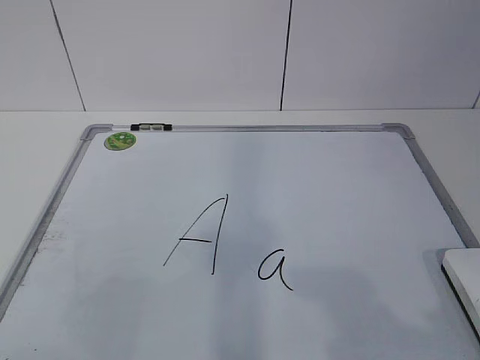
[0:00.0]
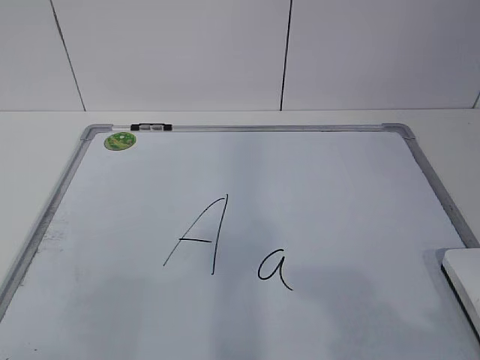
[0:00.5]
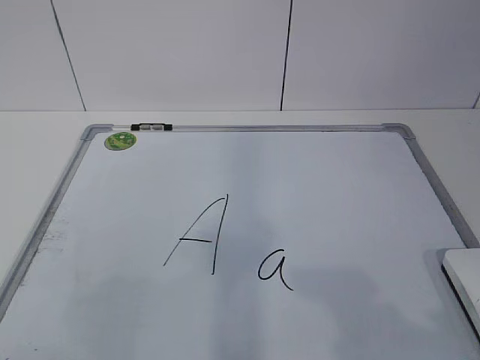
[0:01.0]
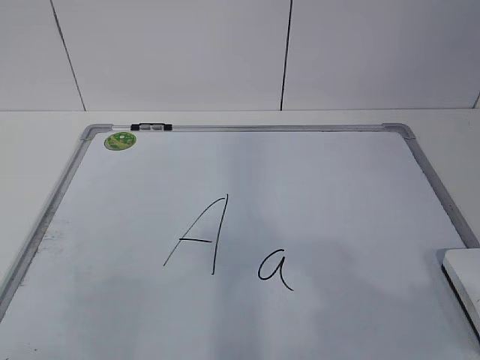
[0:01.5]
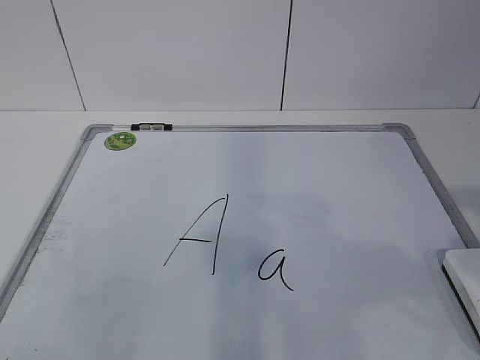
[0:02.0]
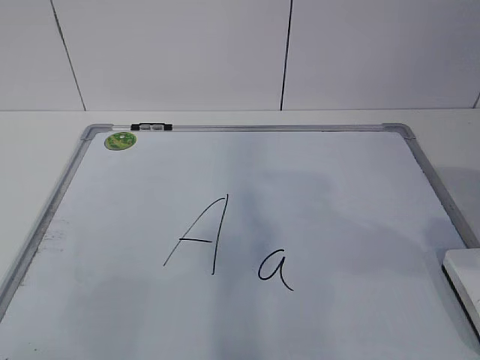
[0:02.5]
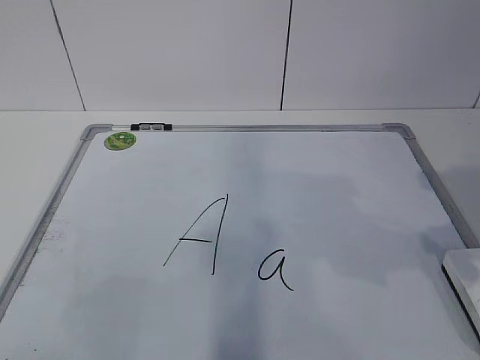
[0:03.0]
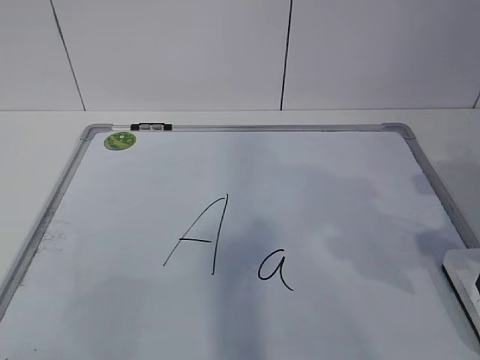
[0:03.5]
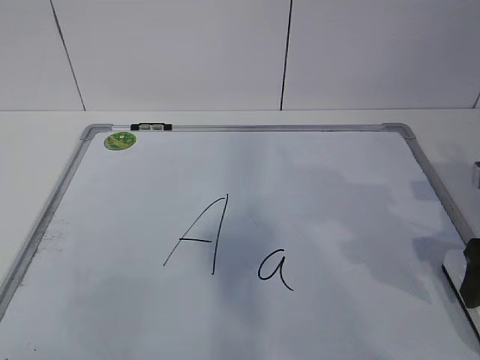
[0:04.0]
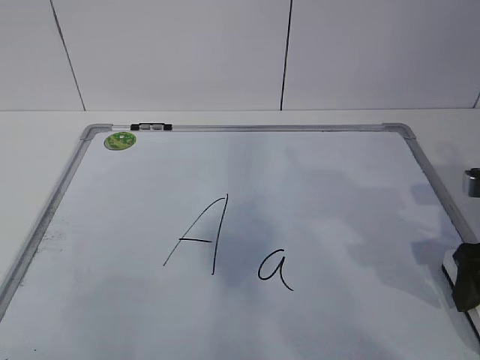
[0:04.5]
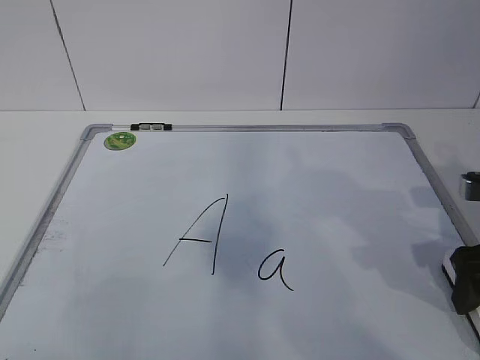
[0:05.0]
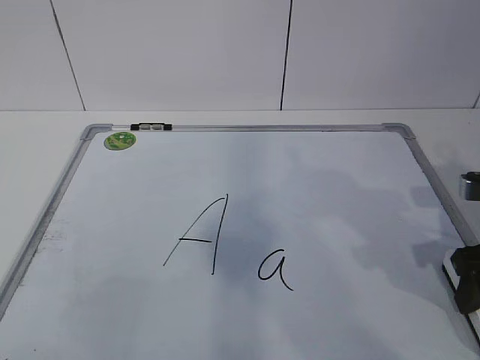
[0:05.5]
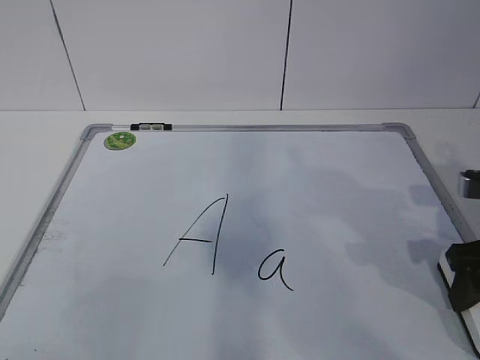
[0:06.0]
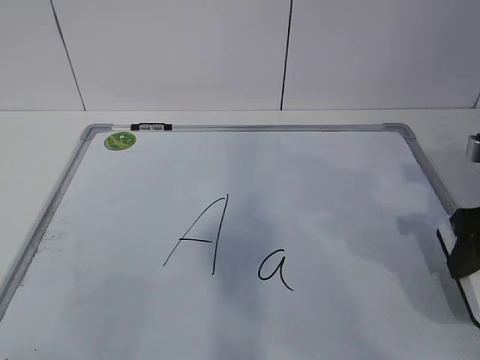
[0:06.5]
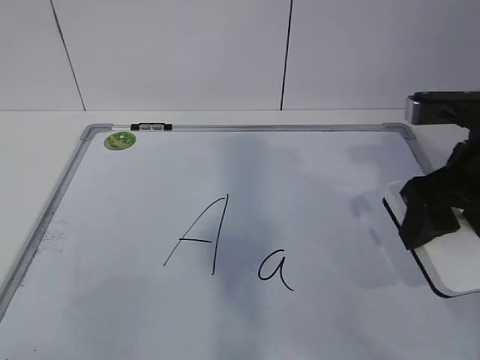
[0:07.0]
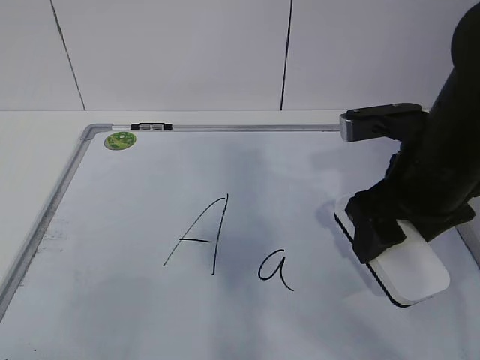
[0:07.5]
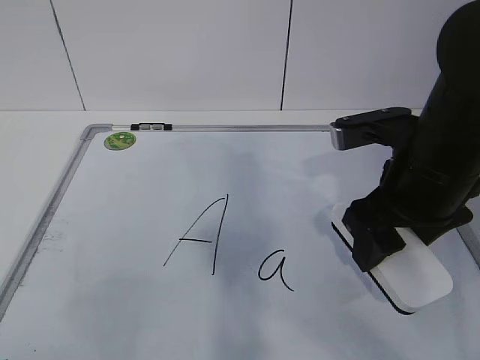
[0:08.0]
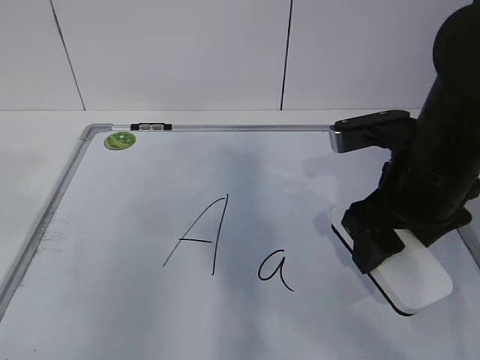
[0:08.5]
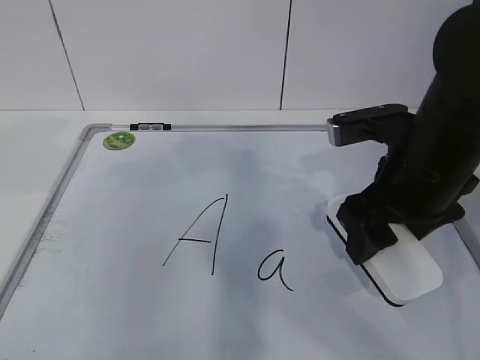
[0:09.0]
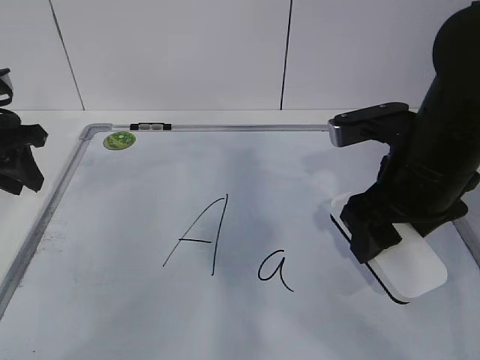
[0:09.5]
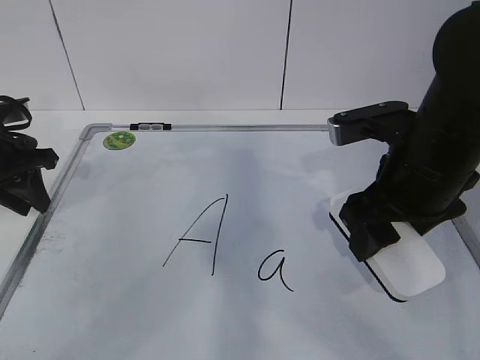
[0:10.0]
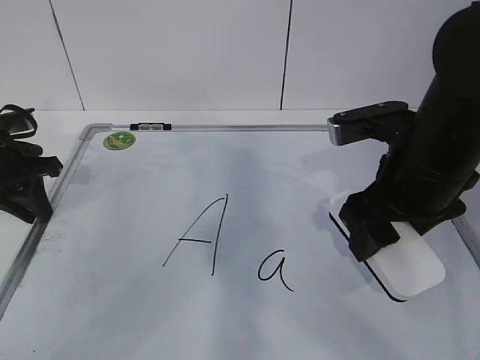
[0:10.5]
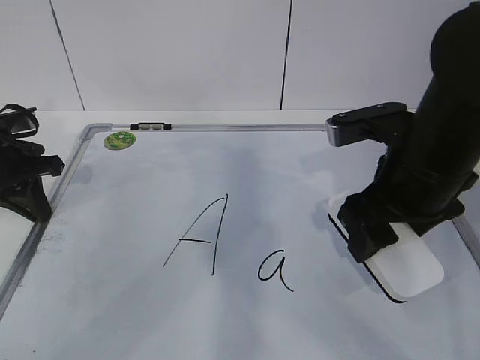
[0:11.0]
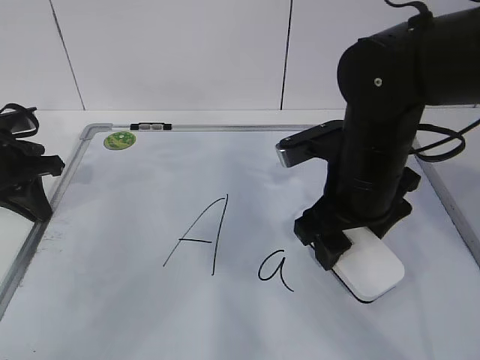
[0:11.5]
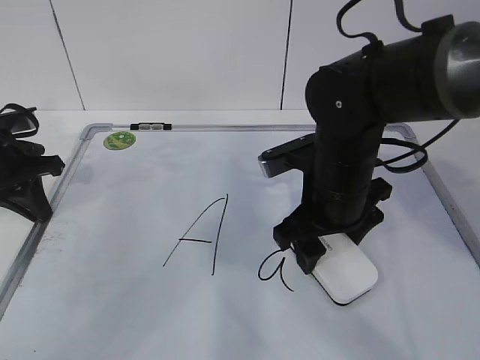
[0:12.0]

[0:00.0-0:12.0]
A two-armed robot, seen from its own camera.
Task of the whole recording: pick up the eraser on the blackboard and erase the letter "a".
Step, 0:05.0 to 0:08.5: Hold the drawing board steady with your left hand.
Step, 0:09.0 to 0:11.5: Erase the letter a with your right hand.
0:02.0 to 0:04.0: The right gripper shifts approximately 20 cm forward and downward.
0:04.0 to 0:06.0: The right gripper closes its fingers.
0:06.0 to 0:08.0: The right gripper shifts roughly 15 cm to the left and upward.
0:08.0 to 0:10.0: The left gripper travels forward by some 35 cm.
0:10.0 to 0:12.0: The right gripper moves to the left and downward, approximately 10 cm; the left gripper closes up.

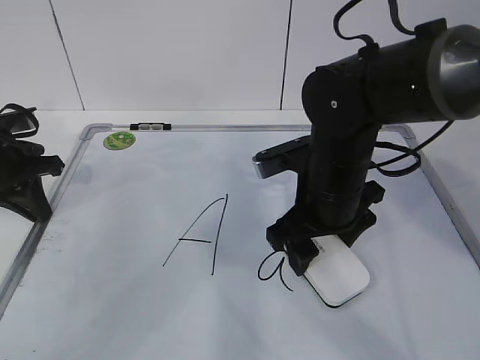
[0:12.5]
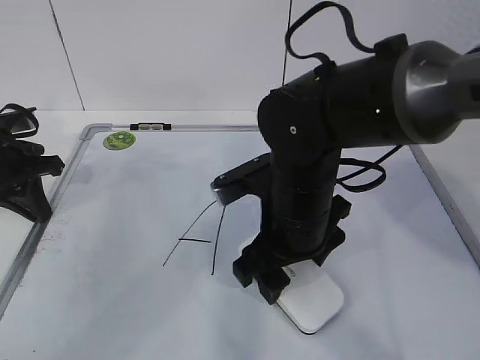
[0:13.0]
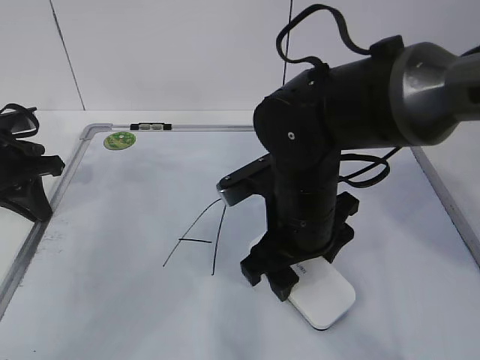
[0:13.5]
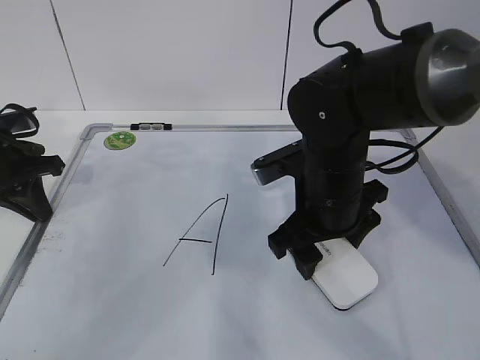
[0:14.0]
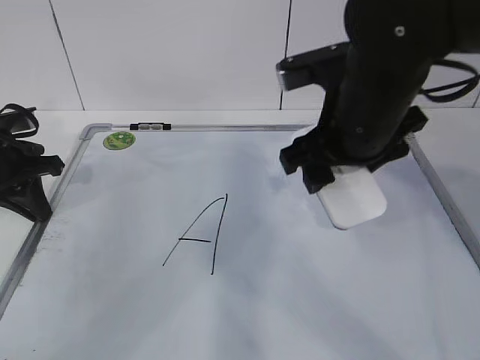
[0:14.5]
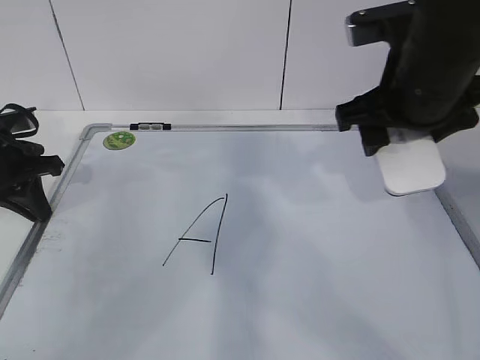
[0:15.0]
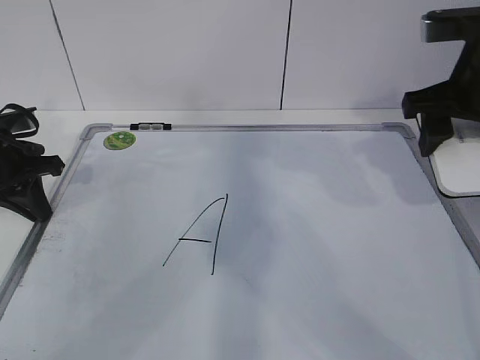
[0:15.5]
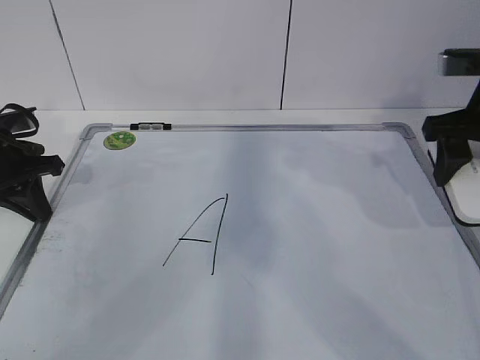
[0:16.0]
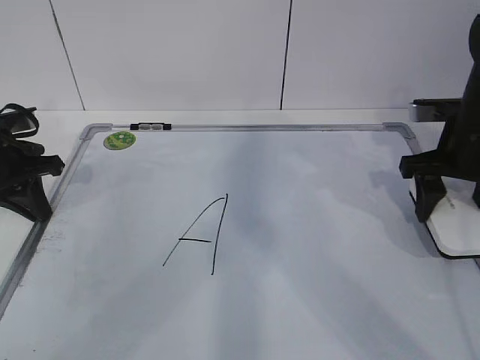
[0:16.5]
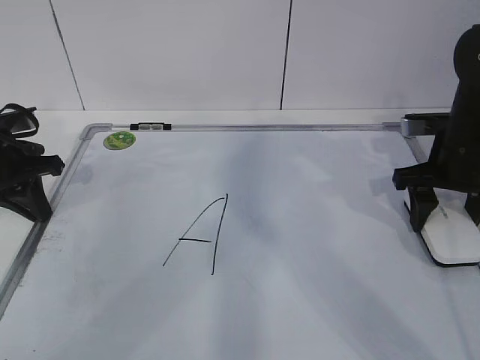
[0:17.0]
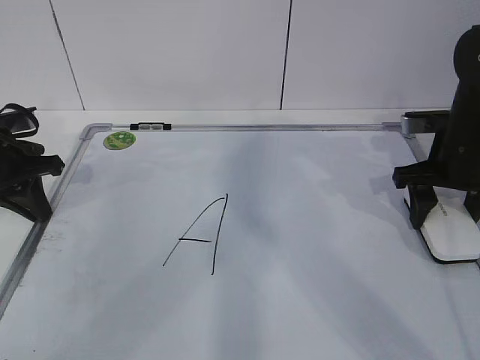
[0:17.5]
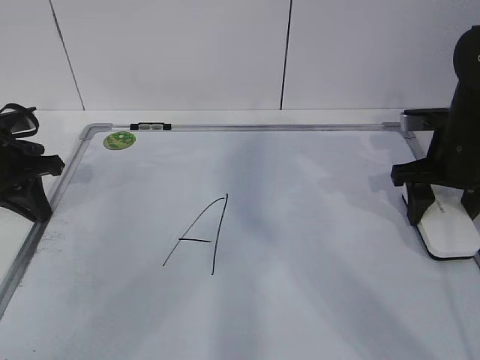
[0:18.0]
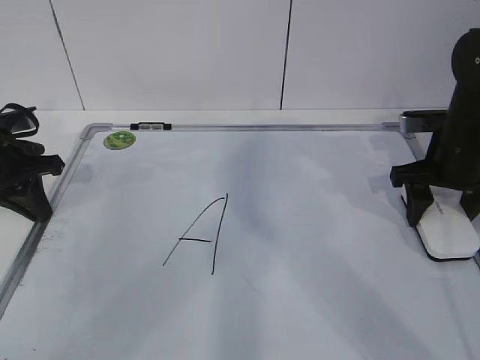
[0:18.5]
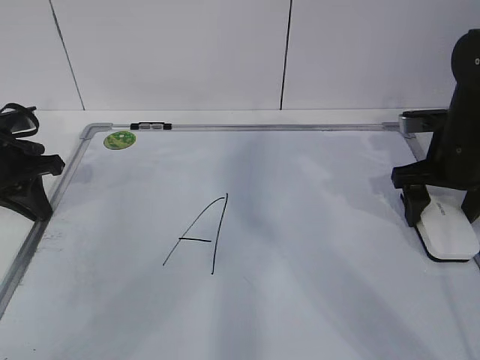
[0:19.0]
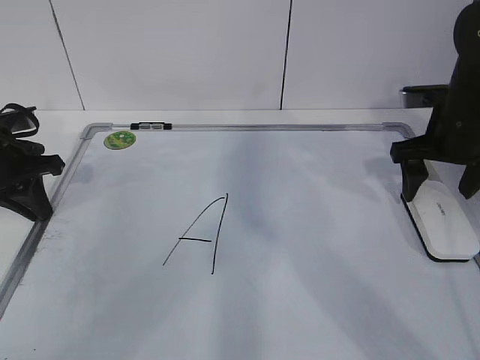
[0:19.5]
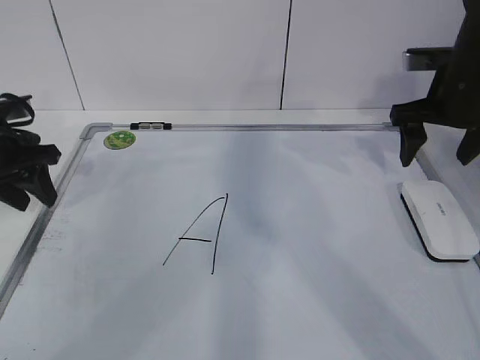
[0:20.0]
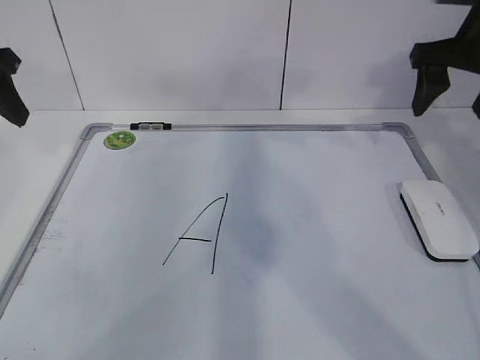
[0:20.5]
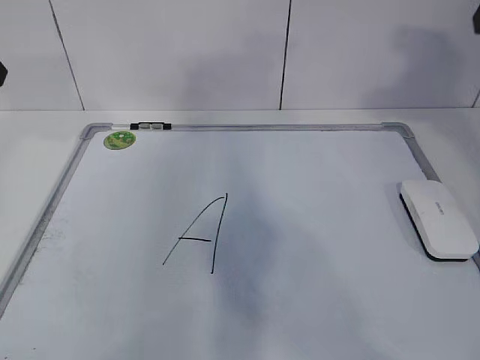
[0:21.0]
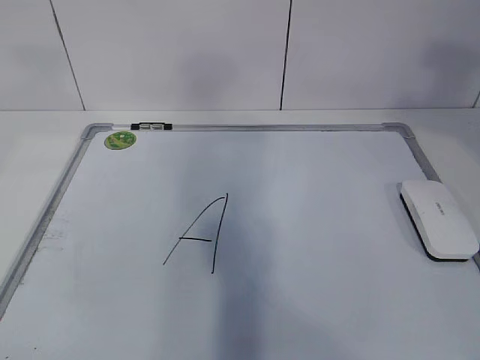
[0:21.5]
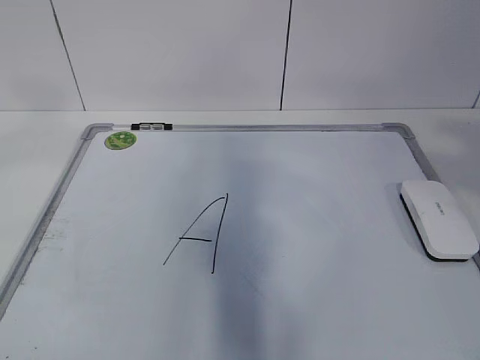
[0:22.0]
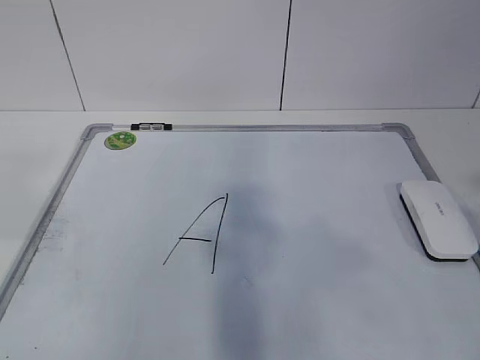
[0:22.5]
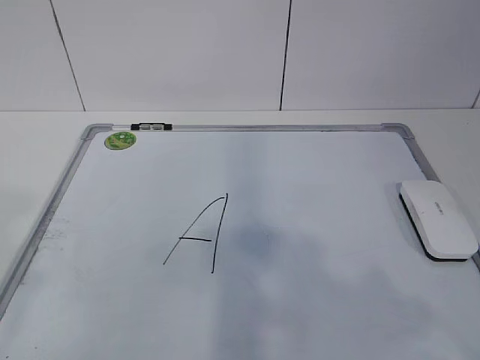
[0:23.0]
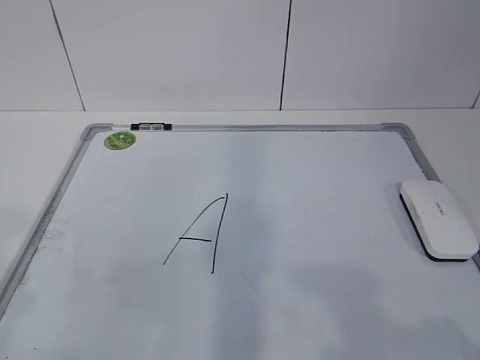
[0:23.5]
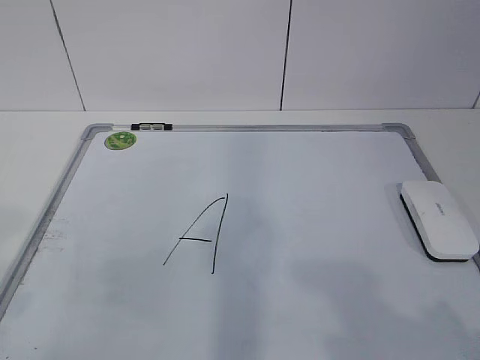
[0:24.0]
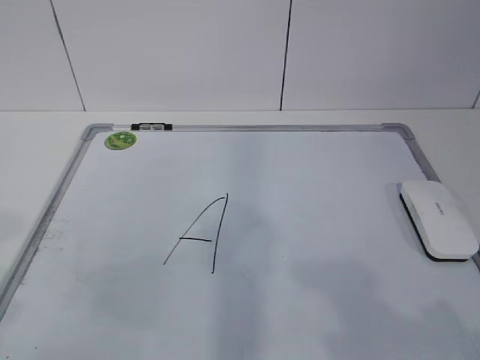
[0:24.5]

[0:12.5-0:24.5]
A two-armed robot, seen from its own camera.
Task of the whole recording: pick up the eraser on the blackboard and erase the letter "a".
Step, 0:12.5 to 0:15.5: Put down the eraser with your right hand.
0:12.5 to 0:14.5: The right gripper moves upward, roughly 10 cm.
0:14.5 to 0:16.5: The right gripper heads to the right and downward, covering approximately 15 cm.
0:16.5 to 0:18.5: There are only small adjustments of the grippers.
0:18.5 to 0:20.5: The two grippers go approximately 15 cm upward. The left gripper opens, while the right gripper opens.
0:20.5 to 0:22.5: Both grippers move backward, some 35 cm. The right gripper closes.
0:22.5 to 0:24.5: The grippers both shift downward by about 10 cm.

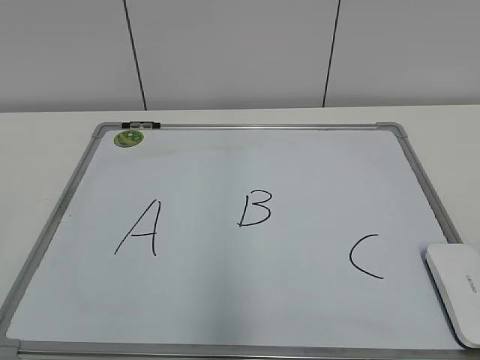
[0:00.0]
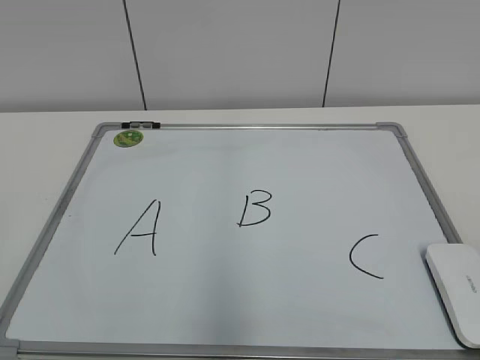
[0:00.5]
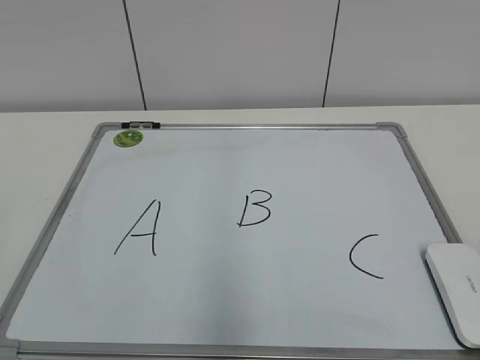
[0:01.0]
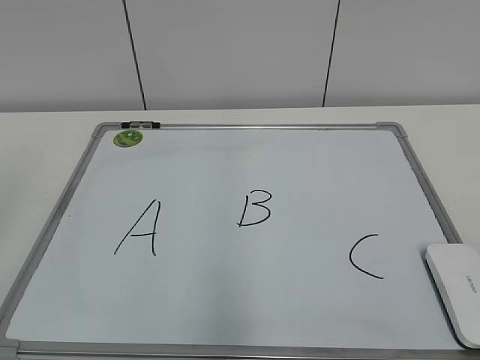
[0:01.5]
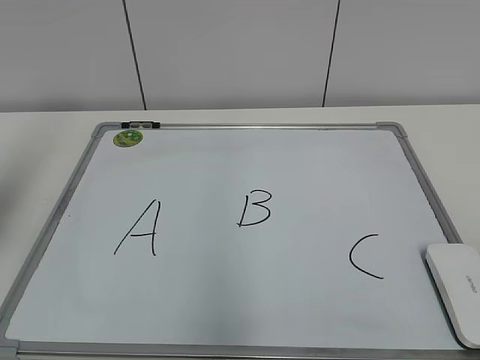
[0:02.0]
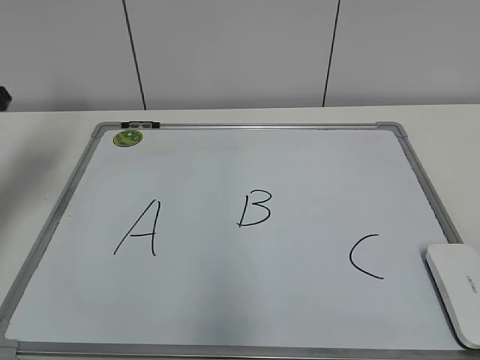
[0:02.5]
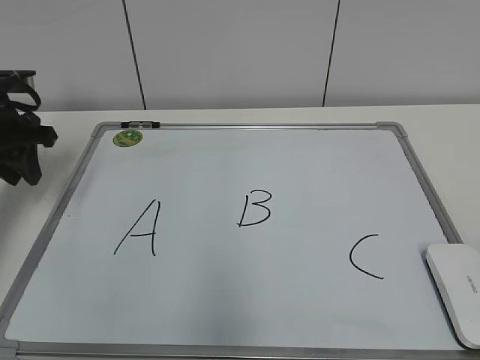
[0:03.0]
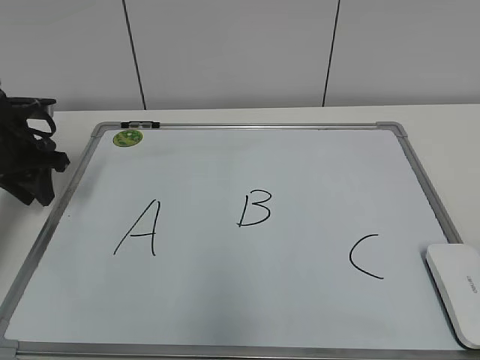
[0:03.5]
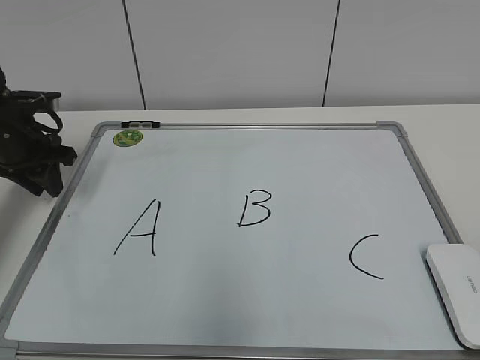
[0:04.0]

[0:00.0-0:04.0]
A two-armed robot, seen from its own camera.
Task of the whole recording: pick up the eraser on the blackboard and erase the letter "B".
0:02.0 to 0:04.0: The left gripper is displaced downward and forward by some 25 cm.
